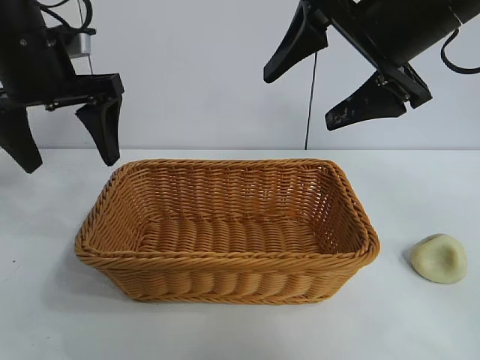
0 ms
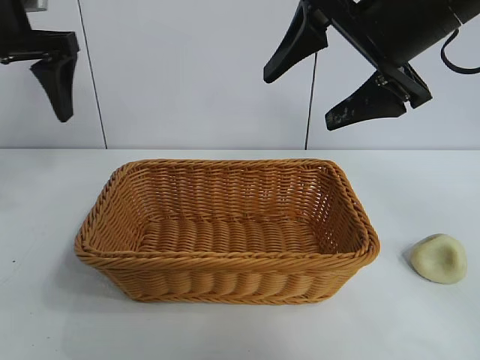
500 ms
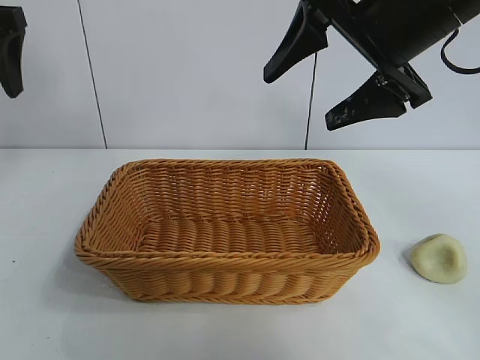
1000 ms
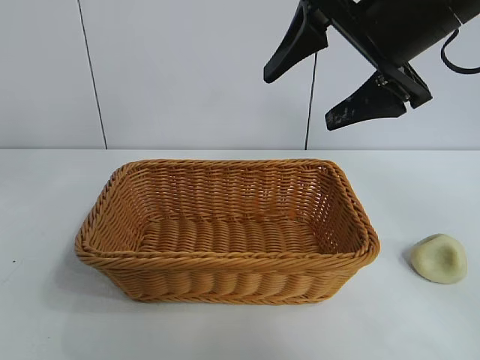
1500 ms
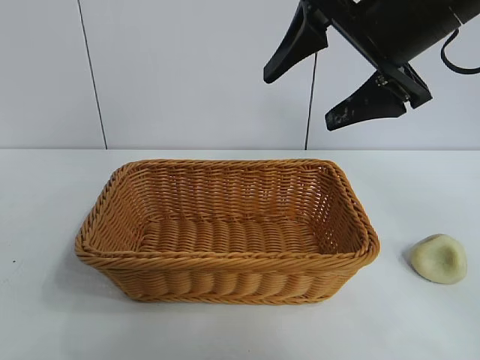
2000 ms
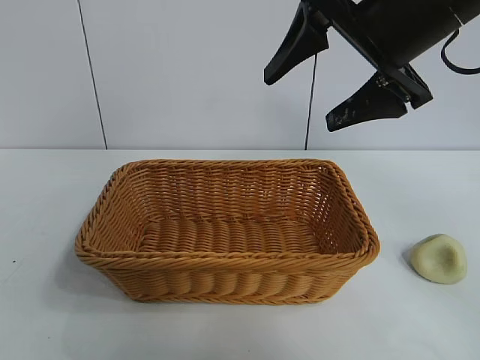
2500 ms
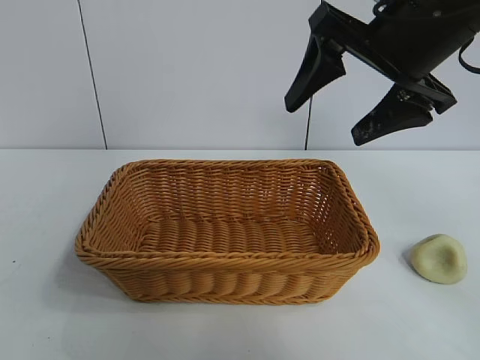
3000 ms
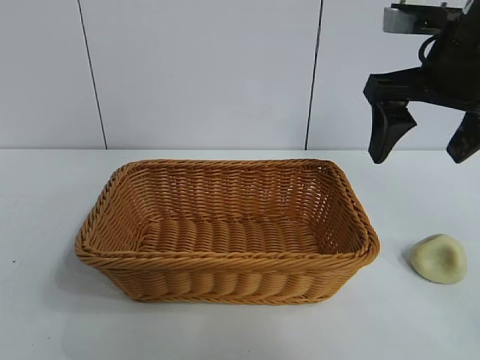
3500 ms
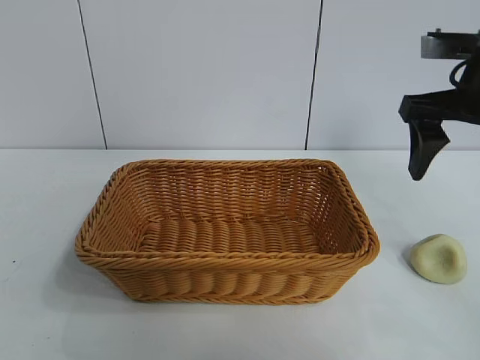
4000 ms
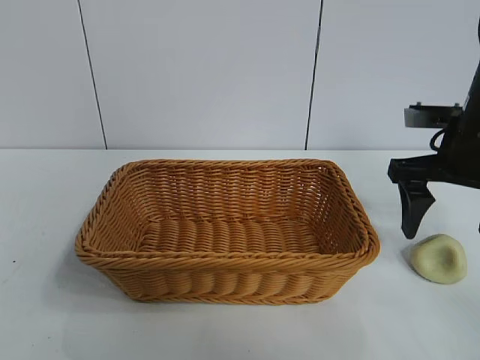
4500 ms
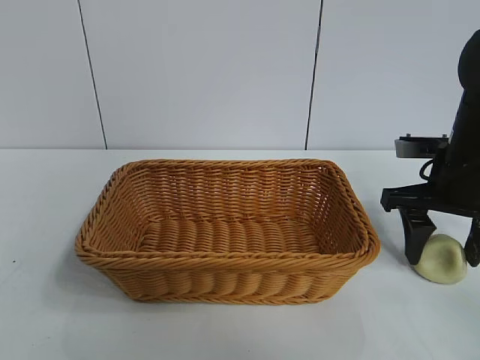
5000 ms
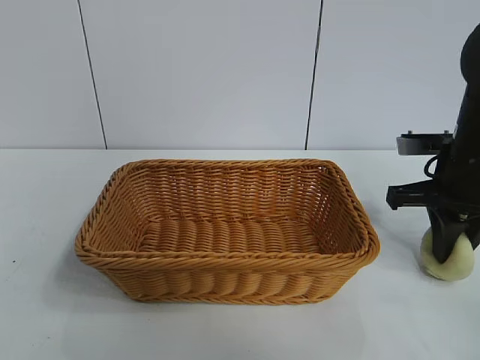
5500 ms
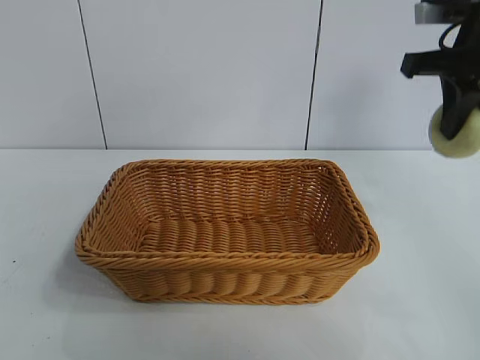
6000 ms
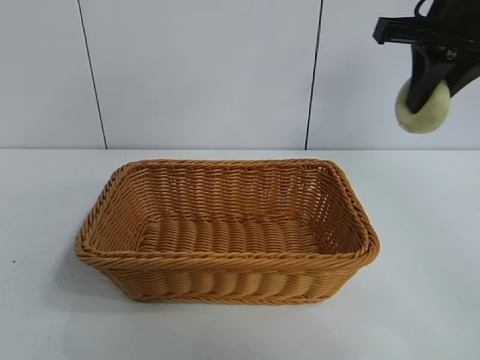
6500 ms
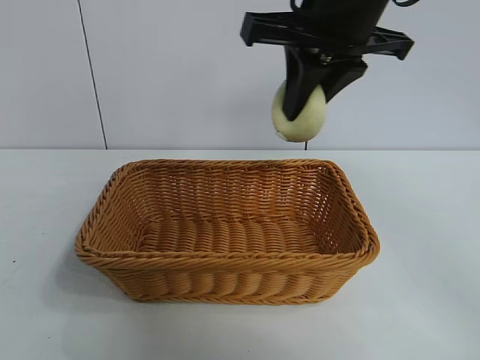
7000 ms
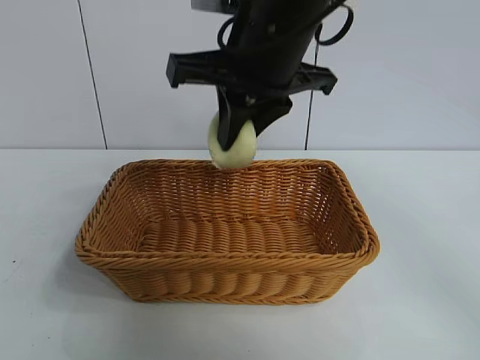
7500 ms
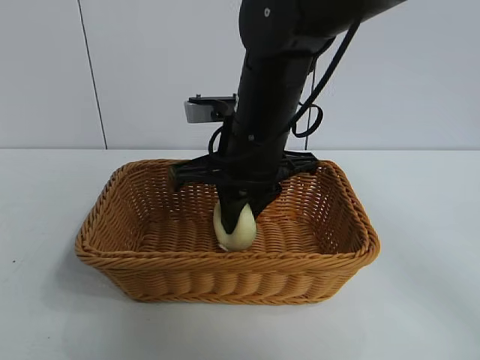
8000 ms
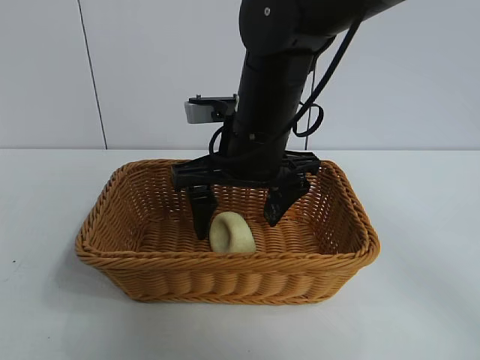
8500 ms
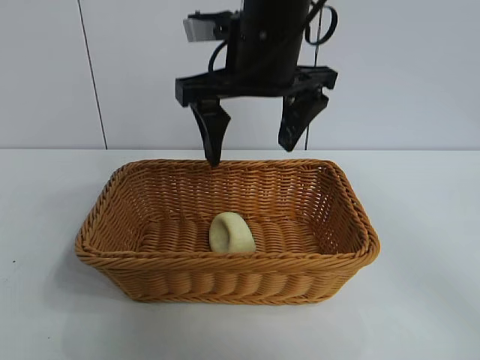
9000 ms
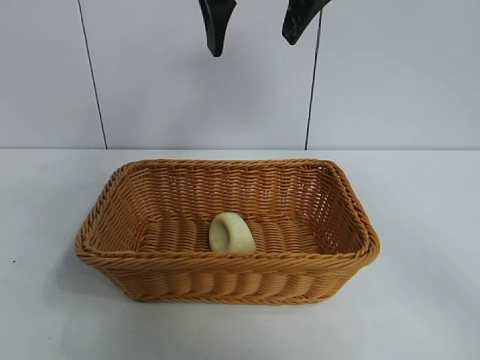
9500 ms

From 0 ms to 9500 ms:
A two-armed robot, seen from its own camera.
Task of the whole recording: pick up the egg yolk pastry and put it into the basket.
Step, from 0 ms to 5000 ms: Grasp egg yolk pastry with right gripper.
Step, from 5500 ms to 8000 ms: Place the egg yolk pastry in the basket with right gripper.

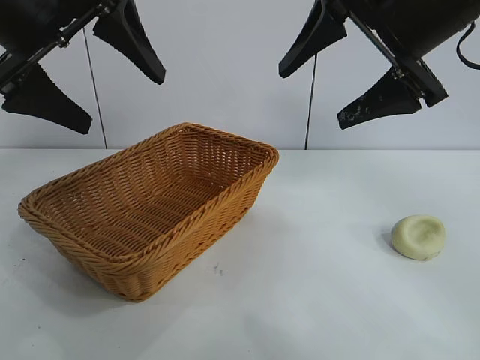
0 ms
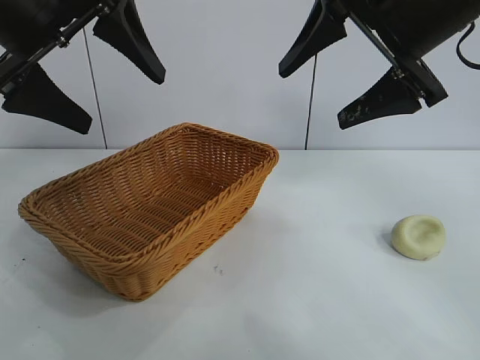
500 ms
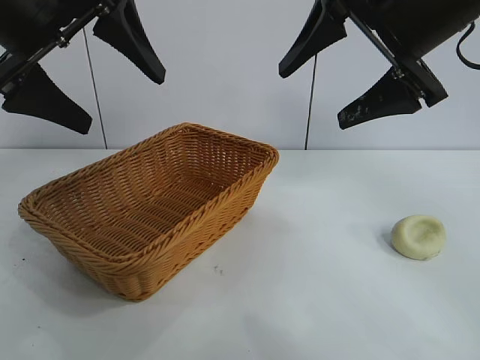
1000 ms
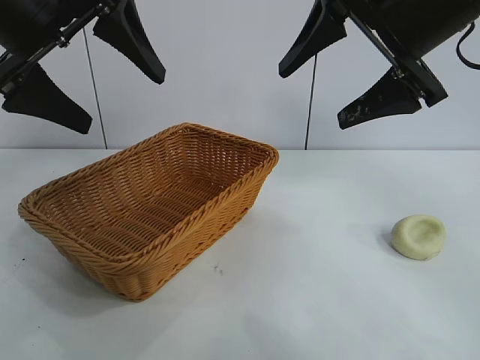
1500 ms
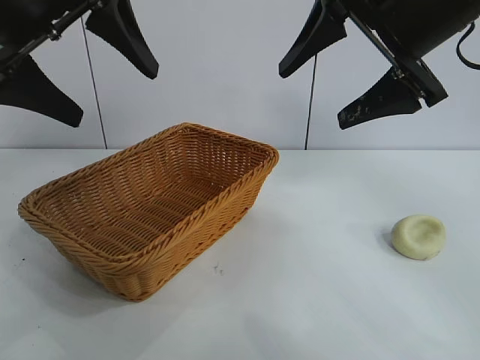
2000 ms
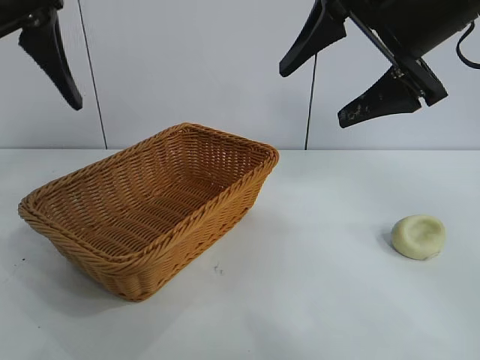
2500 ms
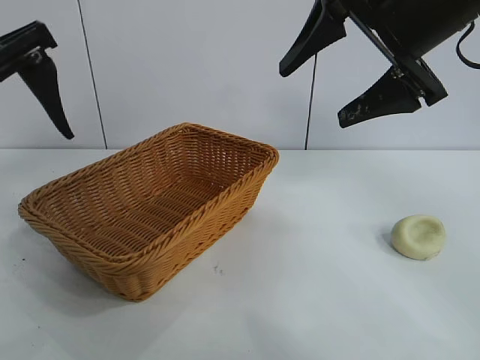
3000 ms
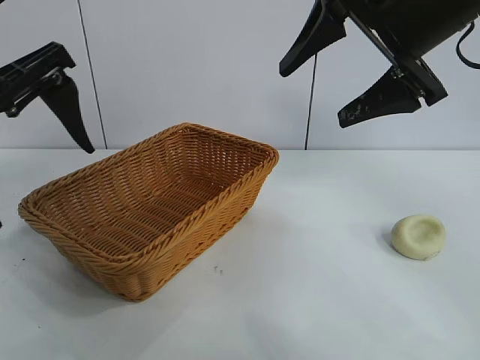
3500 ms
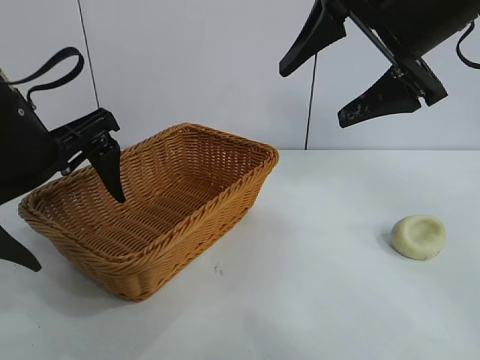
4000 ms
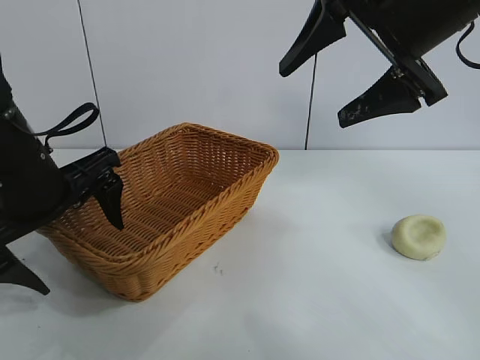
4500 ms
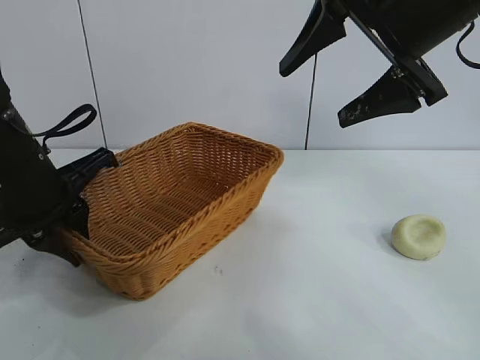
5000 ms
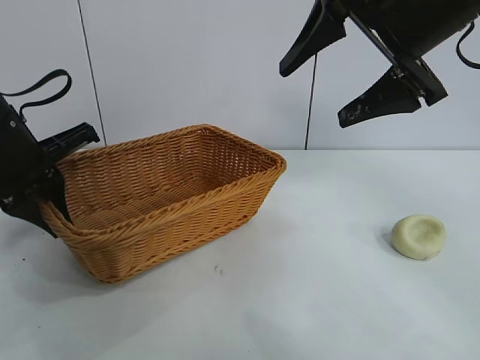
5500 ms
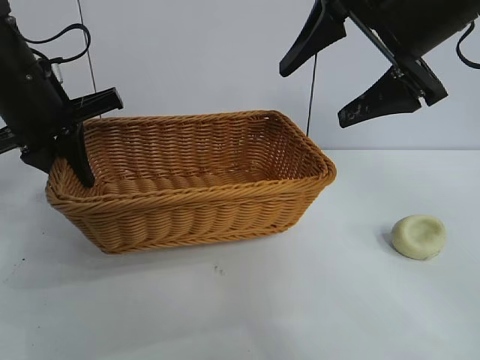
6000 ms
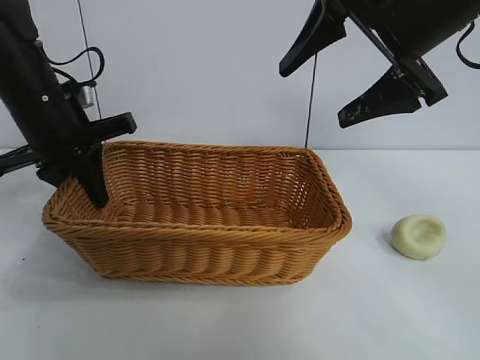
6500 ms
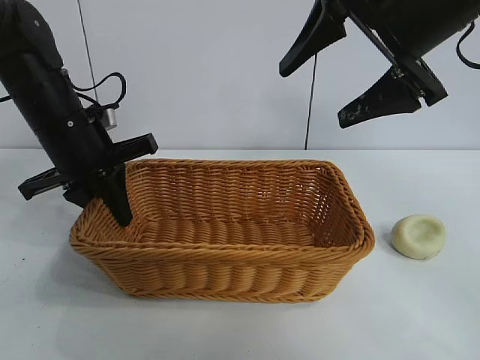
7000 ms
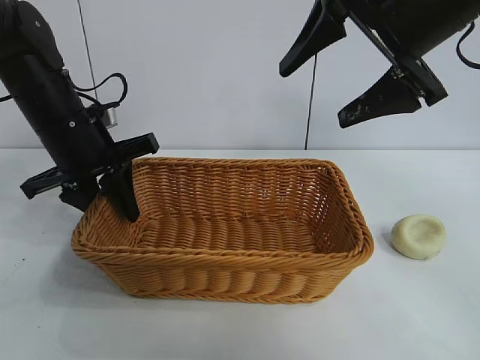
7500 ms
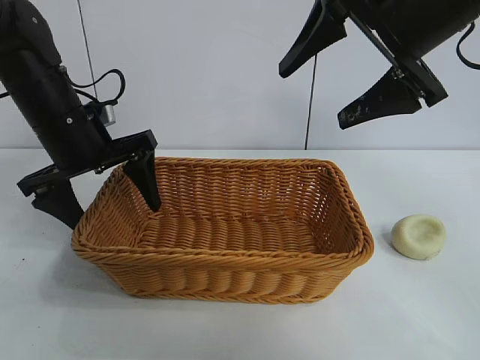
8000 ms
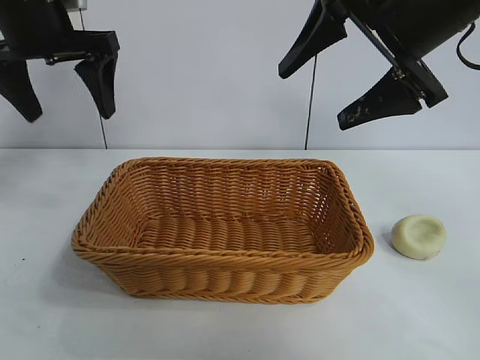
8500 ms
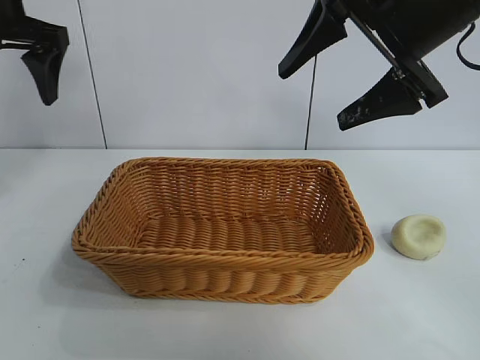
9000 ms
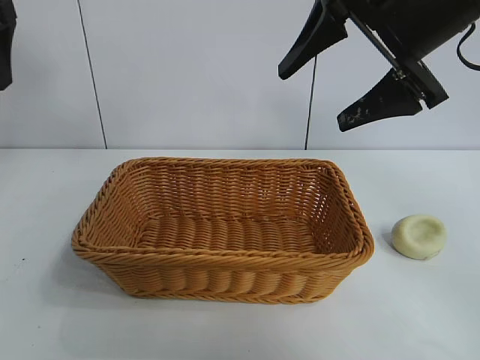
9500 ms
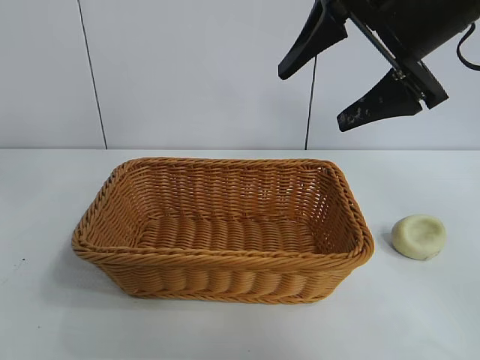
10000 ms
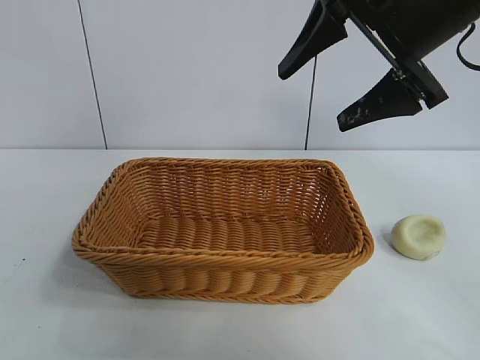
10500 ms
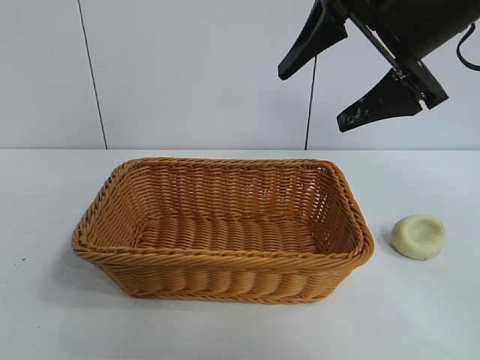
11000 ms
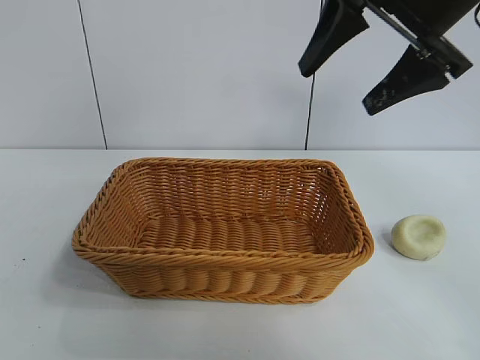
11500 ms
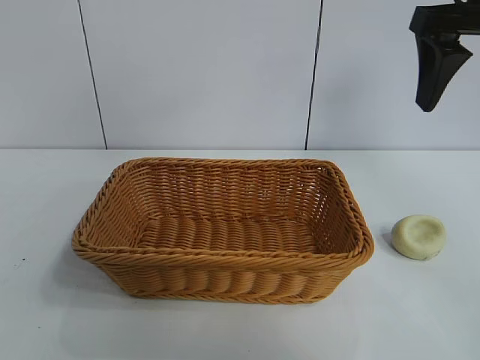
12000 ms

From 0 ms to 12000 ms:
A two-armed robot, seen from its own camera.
Task of the whole recording: pick up the egg yolk pastry and put it into the basket.
Step, from 2000 ms to 5000 ms: Grasp the basket with left gripper.
Step, from 5500 ms to 7500 ms: Place the basket in the center of view with left gripper.

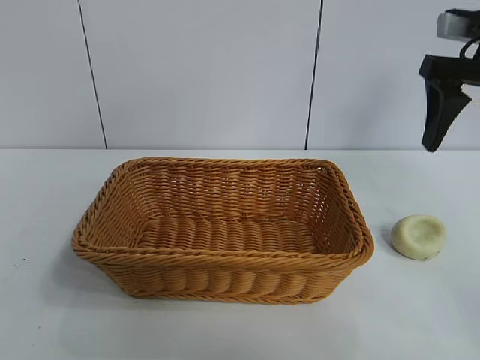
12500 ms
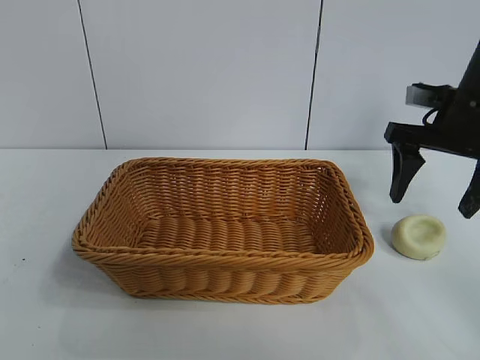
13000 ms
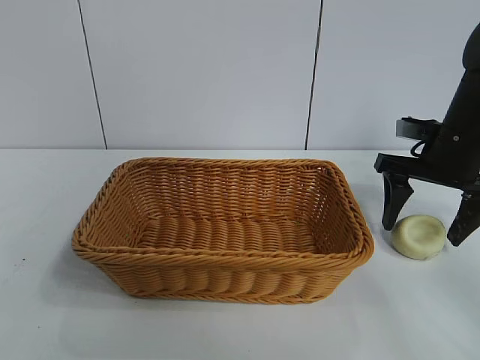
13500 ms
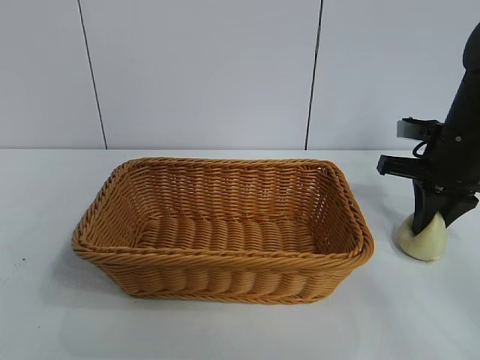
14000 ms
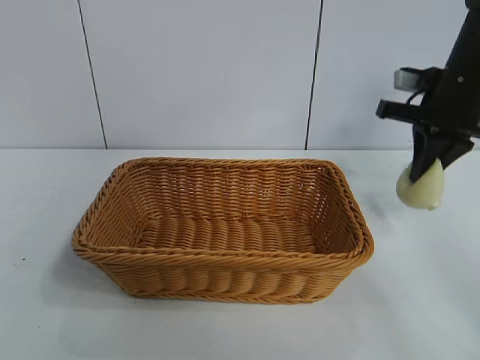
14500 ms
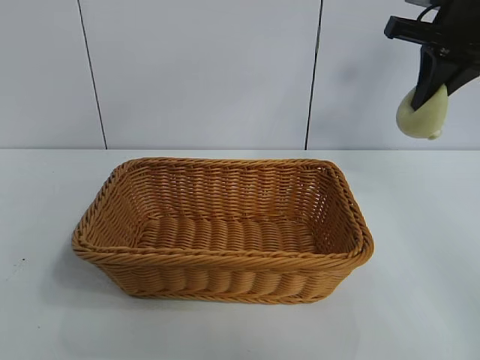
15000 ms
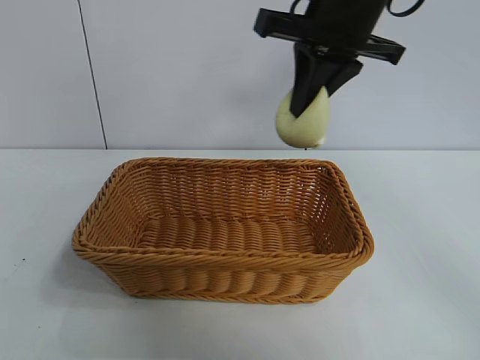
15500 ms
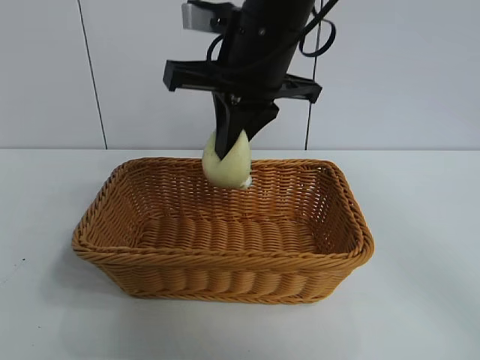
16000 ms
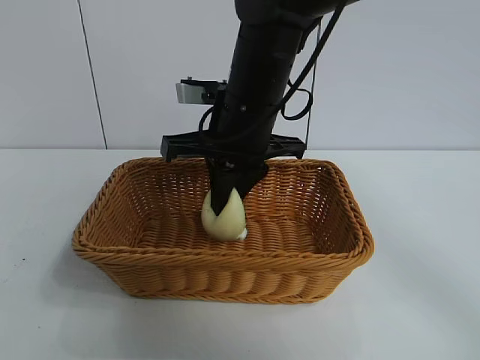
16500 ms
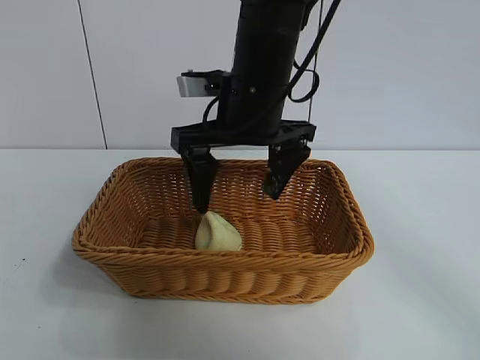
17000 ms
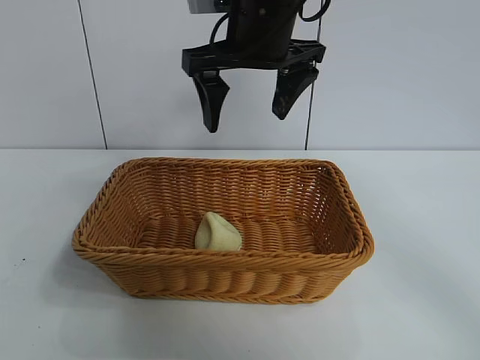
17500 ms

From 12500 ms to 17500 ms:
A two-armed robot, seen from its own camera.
Task of the whole recording: pick up the egg yolk pastry and put it into the basket.
Step, from 14500 ms to 16500 ms: Place the egg yolk pastry in the basket with right gripper.
